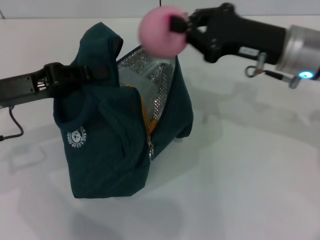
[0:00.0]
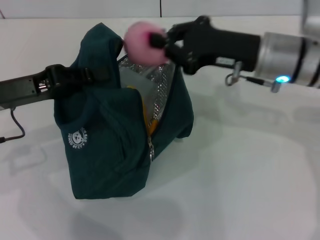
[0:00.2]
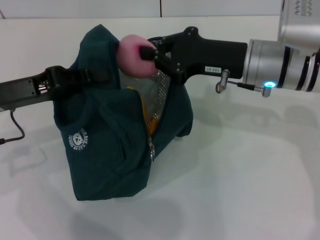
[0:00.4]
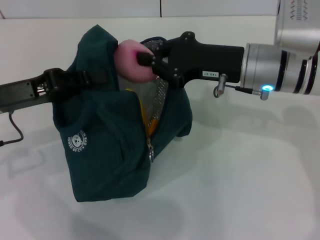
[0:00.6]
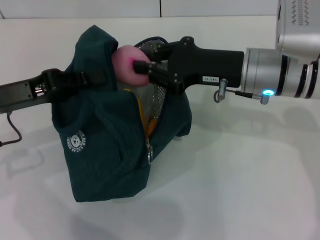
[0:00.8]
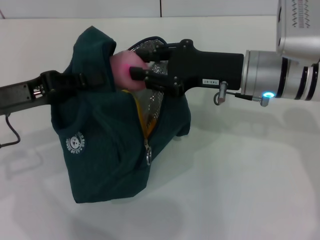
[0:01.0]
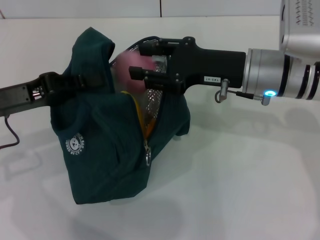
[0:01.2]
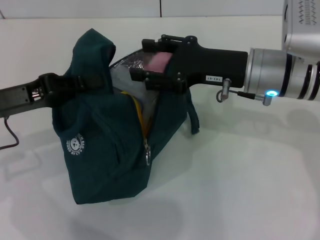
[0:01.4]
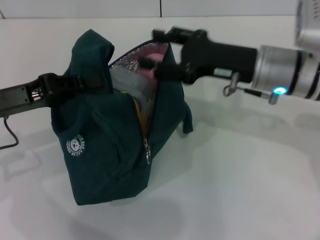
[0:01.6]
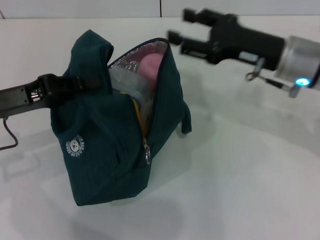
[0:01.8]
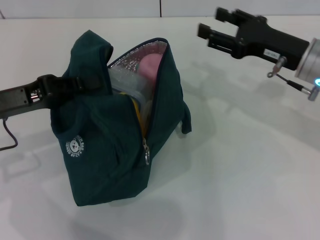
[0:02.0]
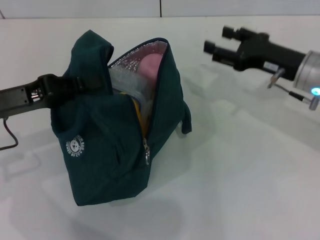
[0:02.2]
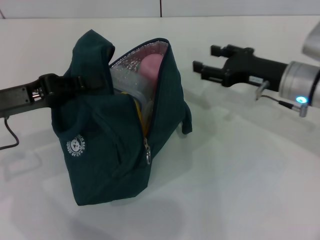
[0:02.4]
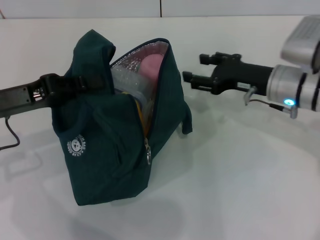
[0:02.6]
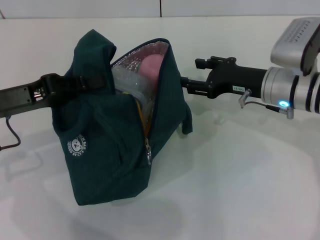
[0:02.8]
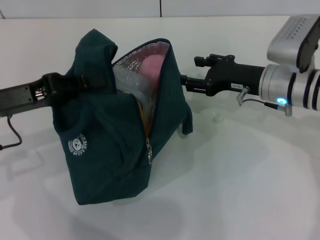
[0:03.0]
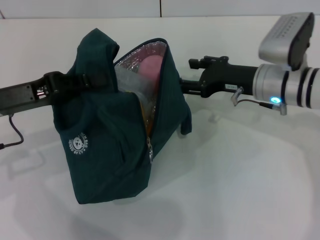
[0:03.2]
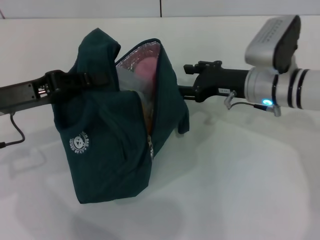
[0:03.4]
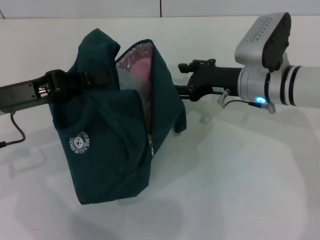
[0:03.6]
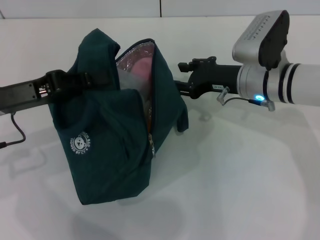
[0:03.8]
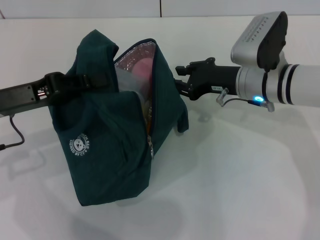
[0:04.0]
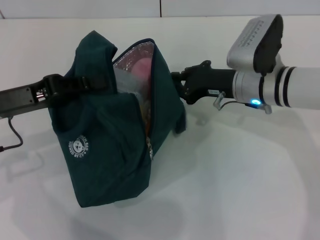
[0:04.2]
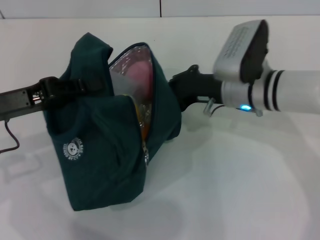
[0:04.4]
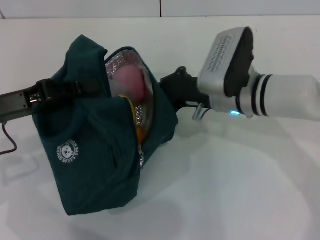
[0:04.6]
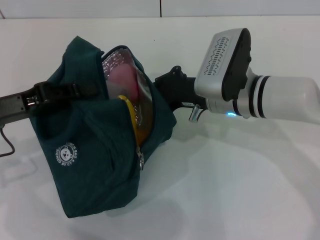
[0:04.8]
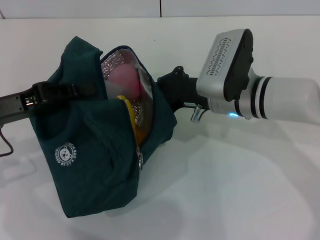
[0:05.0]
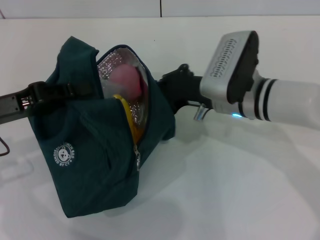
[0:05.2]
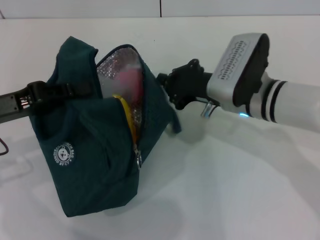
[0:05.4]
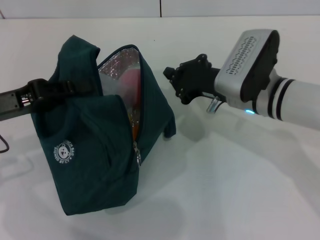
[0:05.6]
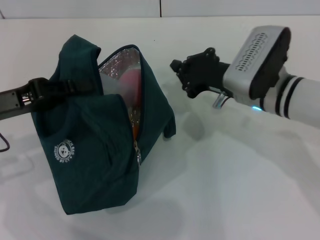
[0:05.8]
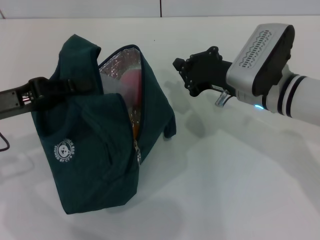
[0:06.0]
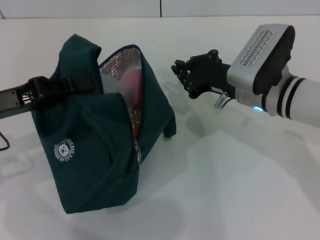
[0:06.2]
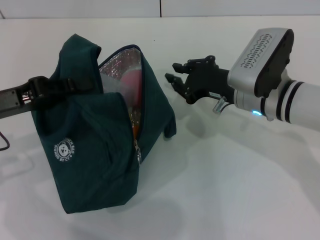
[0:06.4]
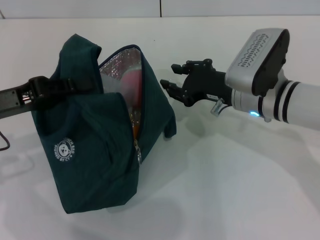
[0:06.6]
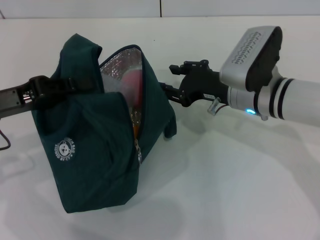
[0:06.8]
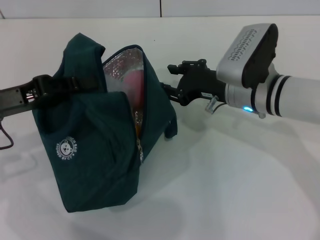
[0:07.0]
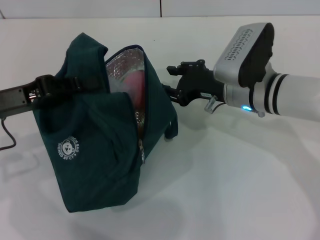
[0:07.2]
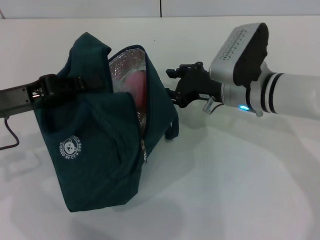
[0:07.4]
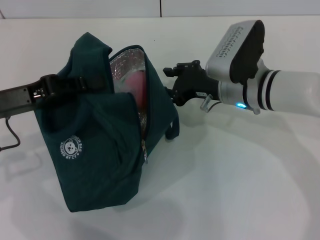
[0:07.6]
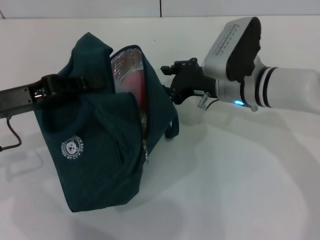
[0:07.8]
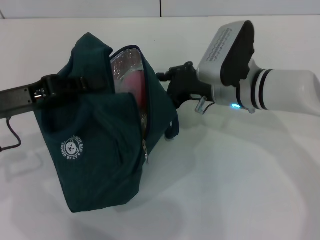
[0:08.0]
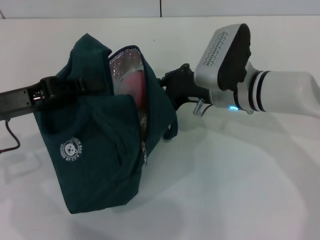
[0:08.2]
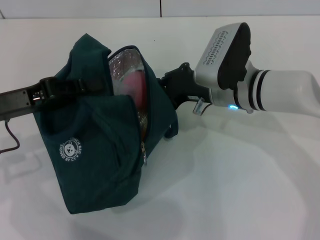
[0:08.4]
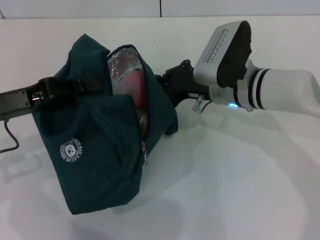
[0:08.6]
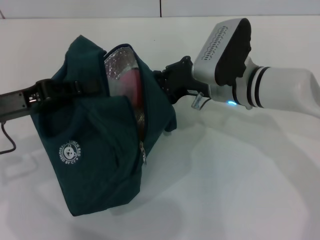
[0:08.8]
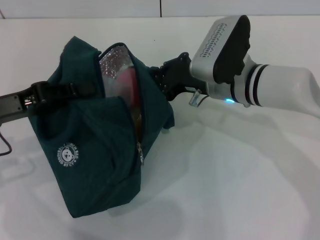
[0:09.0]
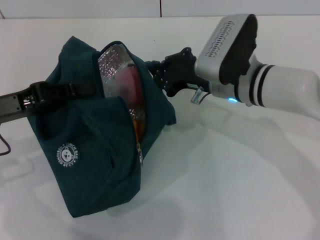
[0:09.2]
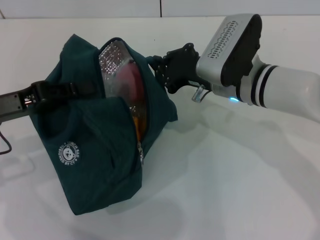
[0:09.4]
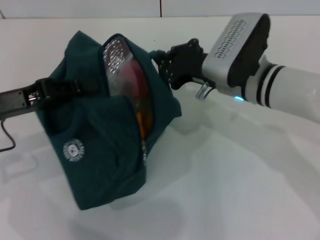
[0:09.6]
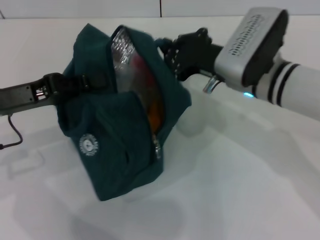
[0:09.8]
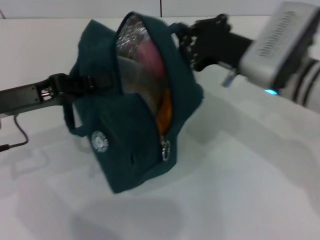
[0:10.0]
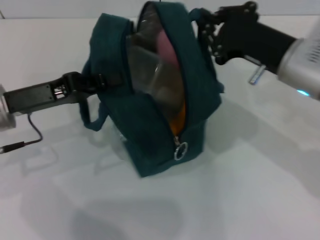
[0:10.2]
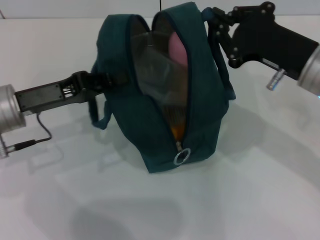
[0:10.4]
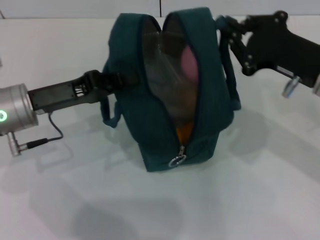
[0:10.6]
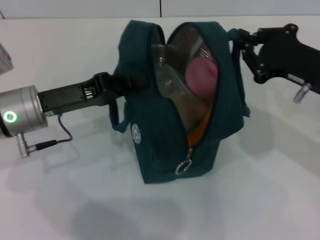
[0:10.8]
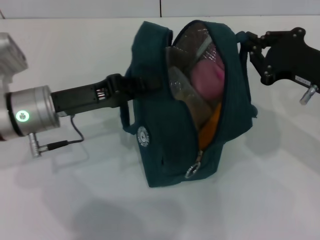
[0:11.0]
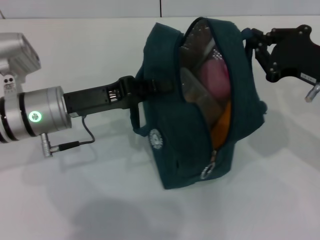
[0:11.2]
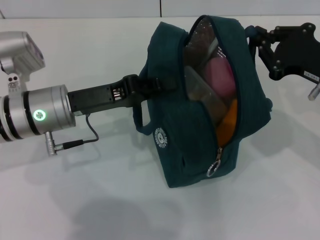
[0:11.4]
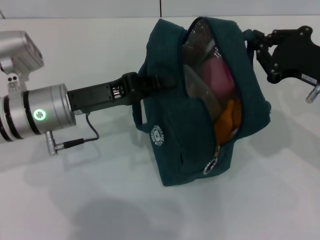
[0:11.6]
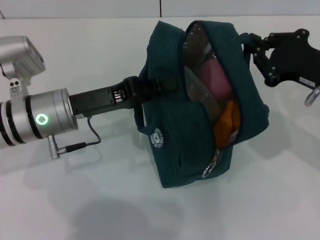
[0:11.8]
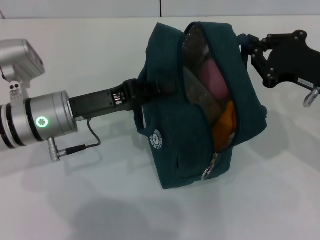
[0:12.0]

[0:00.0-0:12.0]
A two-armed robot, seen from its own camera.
Step, 0:00.0 to 0:01.4: Secure the lunch bag with your left hand.
0:00.0 to 0:01.6: The right gripper opens up.
0:01.6 to 0:03.0: The right gripper is displaced downward by roughly 5 cm.
0:03.0 to 0:04.4: The right gripper shifts approximately 5 cm to the left, and closes its fingers.
0:04.4 to 0:06.0: The grippers make only small movements.
0:06.0 to 0:07.6: The right gripper opens up.
0:07.6 to 0:09.0: The right gripper closes its fingers.
0:09.0 to 0:10.4: The right gripper shifts approximately 15 cm to the right, backward and upward; the left gripper shifts by roughly 5 cm.
0:10.4 to 0:12.0: The grippers both shift to the right by some 5 cm.

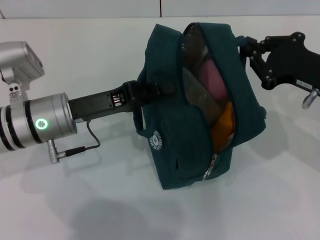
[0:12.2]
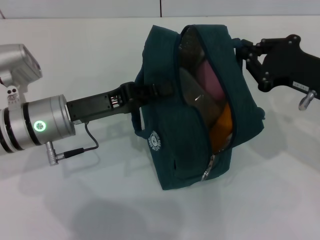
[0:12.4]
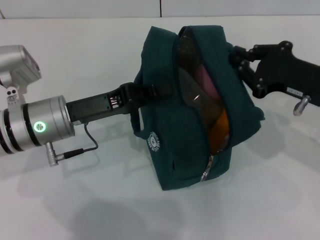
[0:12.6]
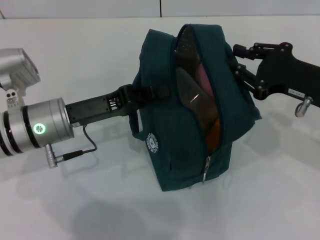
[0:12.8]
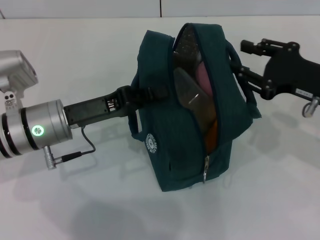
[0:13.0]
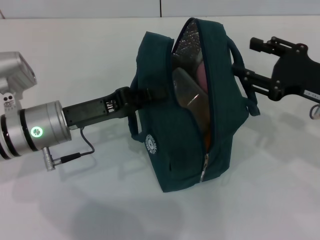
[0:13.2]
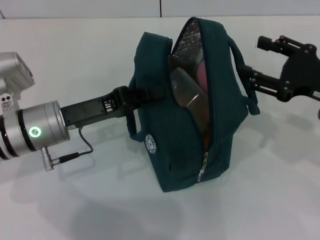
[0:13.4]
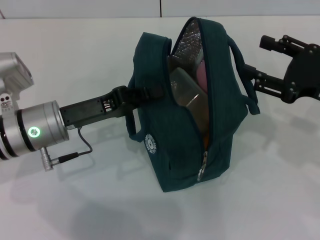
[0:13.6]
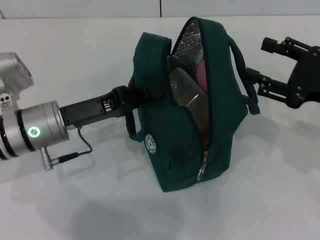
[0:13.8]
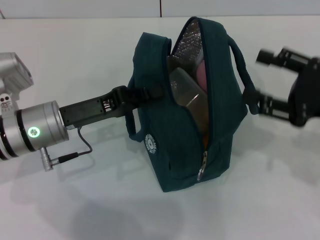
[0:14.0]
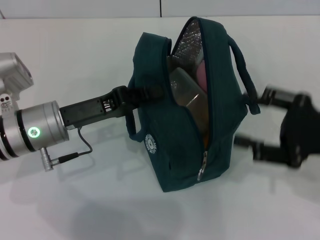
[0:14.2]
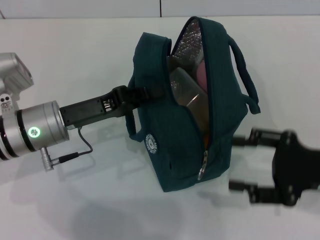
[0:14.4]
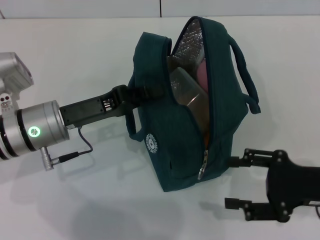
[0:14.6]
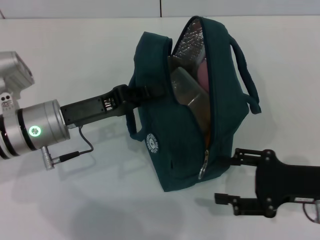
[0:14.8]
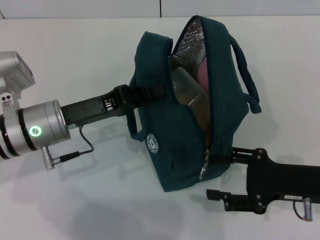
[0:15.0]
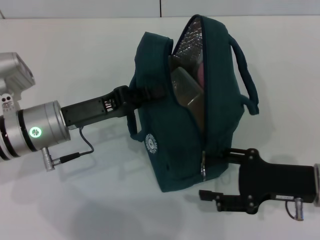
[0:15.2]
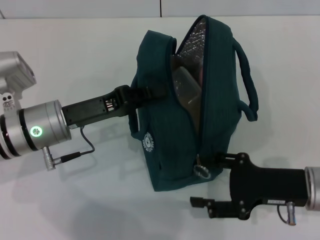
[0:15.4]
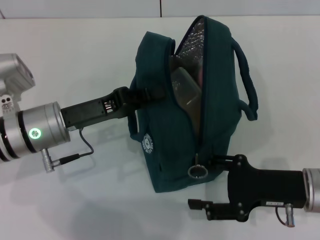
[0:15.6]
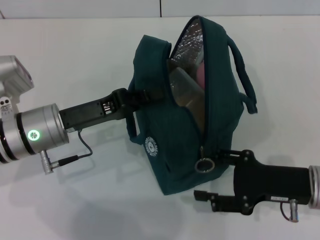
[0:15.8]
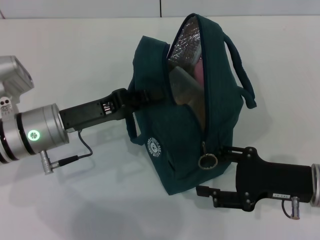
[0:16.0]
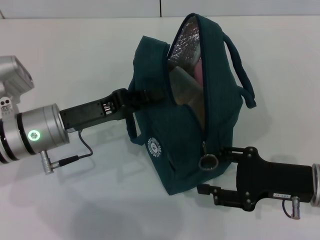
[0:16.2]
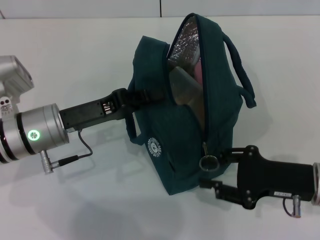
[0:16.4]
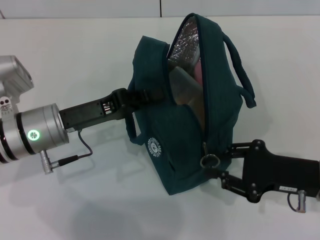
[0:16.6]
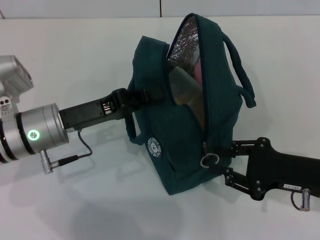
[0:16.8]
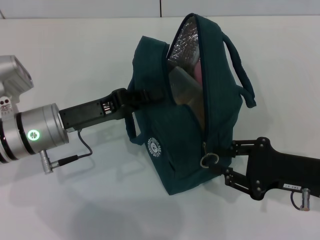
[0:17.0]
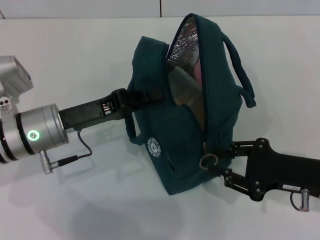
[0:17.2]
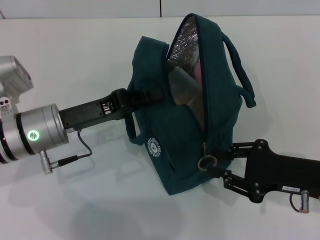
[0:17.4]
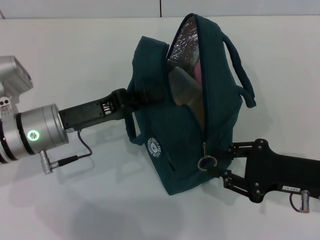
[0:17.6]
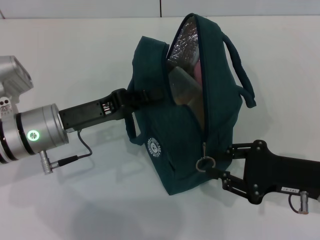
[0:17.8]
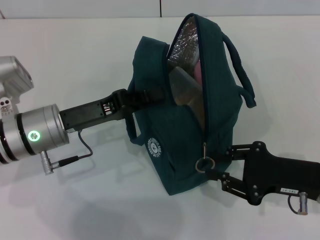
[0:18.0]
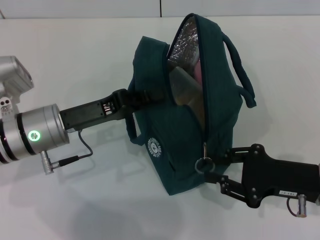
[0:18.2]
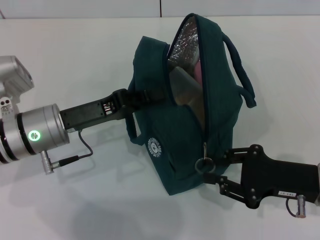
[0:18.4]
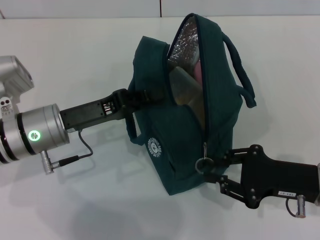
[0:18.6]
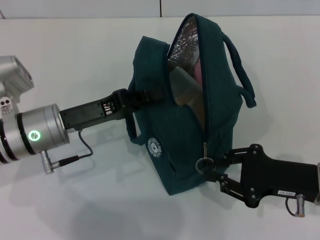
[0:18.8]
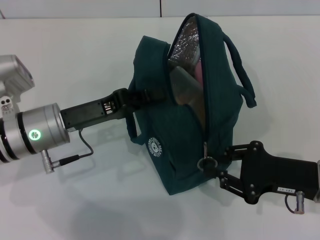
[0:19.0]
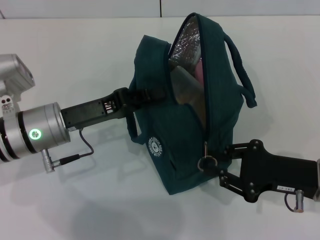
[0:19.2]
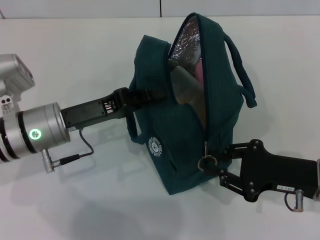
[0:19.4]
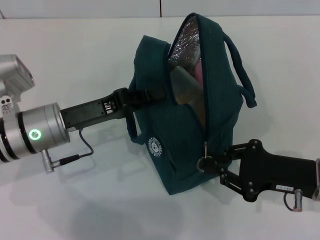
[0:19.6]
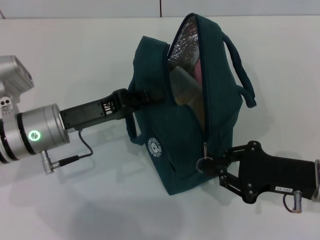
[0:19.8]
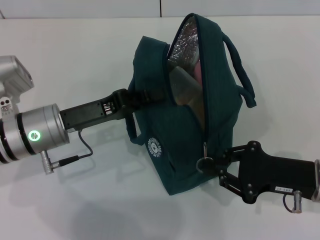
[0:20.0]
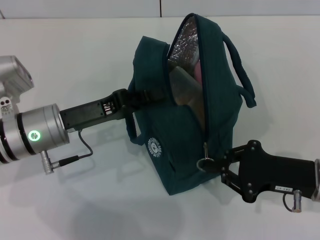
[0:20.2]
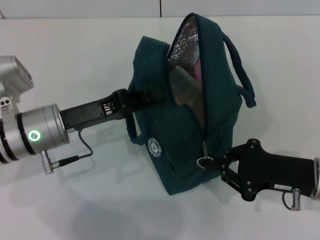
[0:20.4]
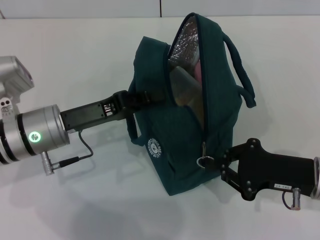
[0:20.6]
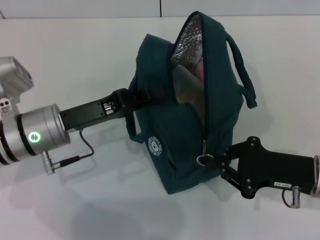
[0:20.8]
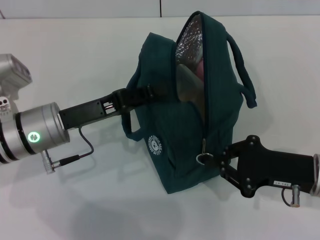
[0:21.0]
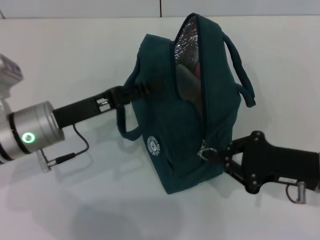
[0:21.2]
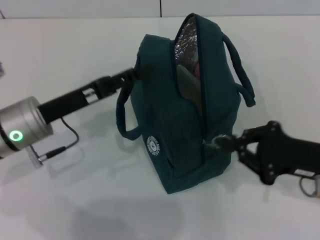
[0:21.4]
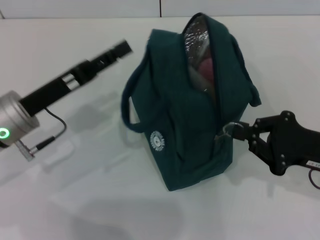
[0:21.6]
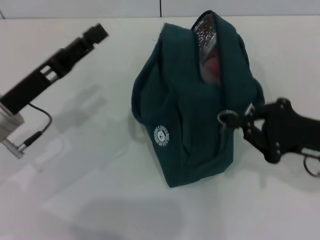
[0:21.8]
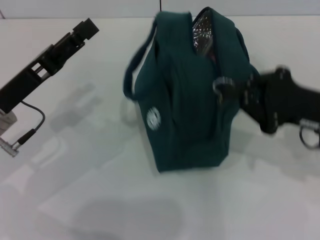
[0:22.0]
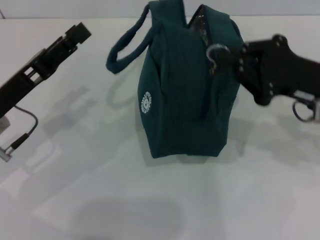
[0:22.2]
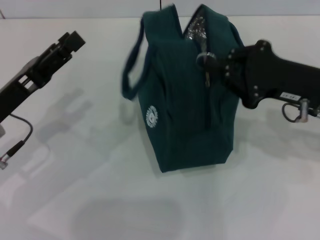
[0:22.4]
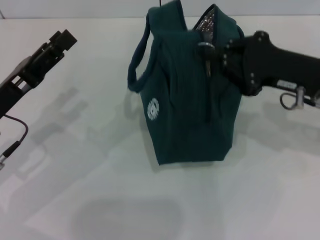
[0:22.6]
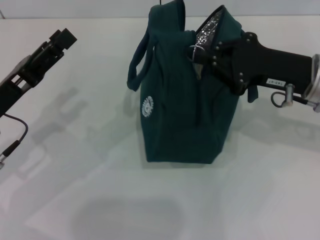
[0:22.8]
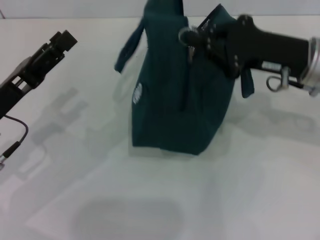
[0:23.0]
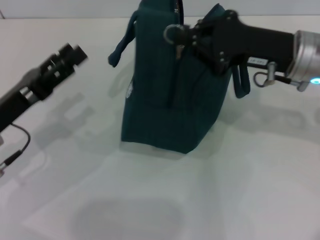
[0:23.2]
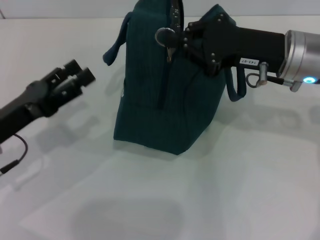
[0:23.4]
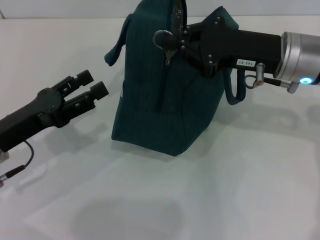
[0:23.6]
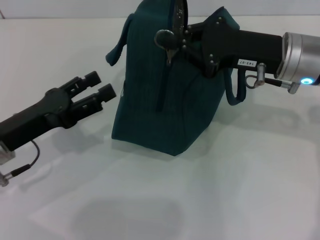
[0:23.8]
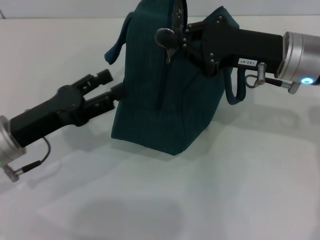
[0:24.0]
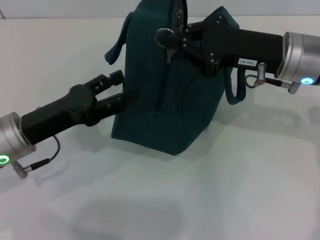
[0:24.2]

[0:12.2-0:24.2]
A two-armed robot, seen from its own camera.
Step, 0:13.2 to 0:21.4: Hold the lunch bag with your left hand.
0:12.2 to 0:13.8: The right gripper opens up.
0:13.8 to 0:15.2: The right gripper is displaced downward by some 10 cm.
0:15.2 to 0:16.6: There are only small adjustments of the grippers.
0:16.6 to 0:19.8: Both grippers stay put.
0:19.8 to 0:21.2: The grippers make only small movements.
0:21.2 to 0:22.6: The left gripper goes approximately 5 cm to the left, and opens; the right gripper shifts roughly 10 cm upward and forward.
0:22.6 to 0:24.2: The right gripper shifts by approximately 5 cm.
